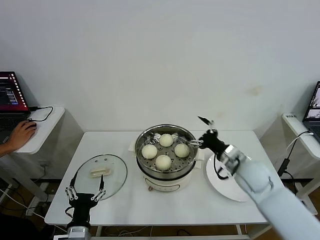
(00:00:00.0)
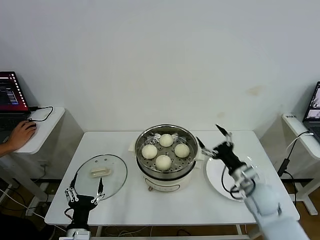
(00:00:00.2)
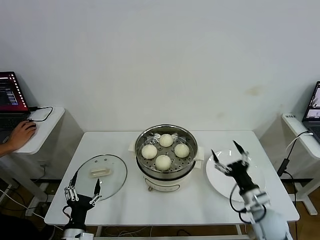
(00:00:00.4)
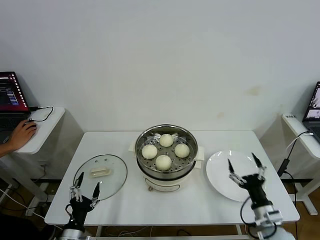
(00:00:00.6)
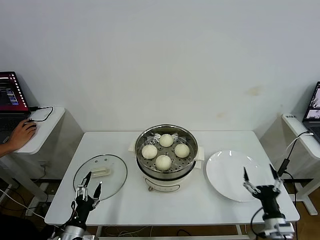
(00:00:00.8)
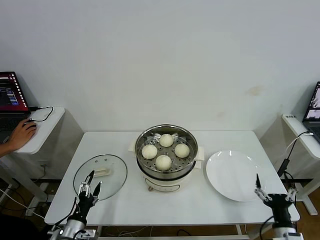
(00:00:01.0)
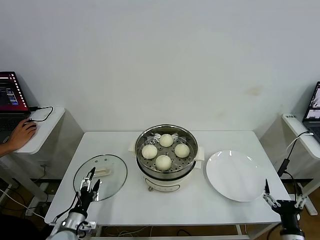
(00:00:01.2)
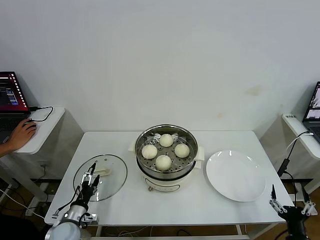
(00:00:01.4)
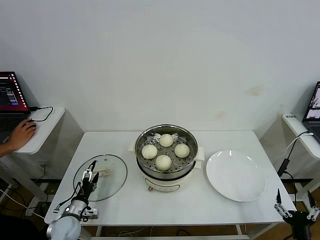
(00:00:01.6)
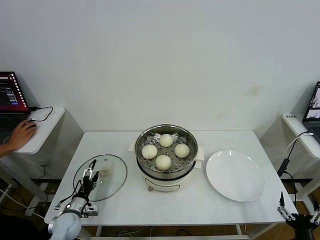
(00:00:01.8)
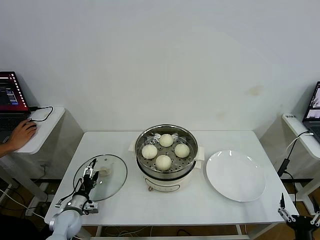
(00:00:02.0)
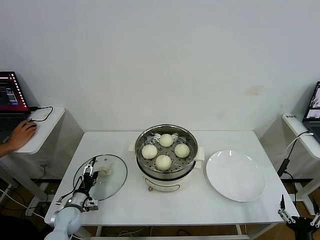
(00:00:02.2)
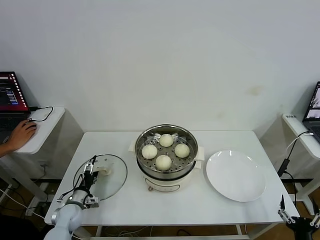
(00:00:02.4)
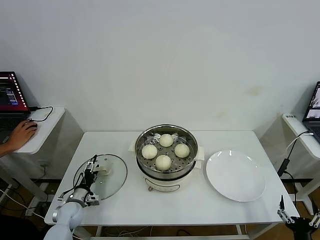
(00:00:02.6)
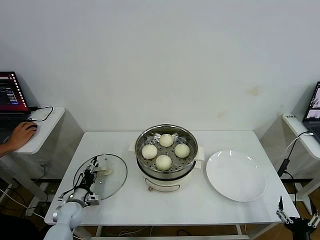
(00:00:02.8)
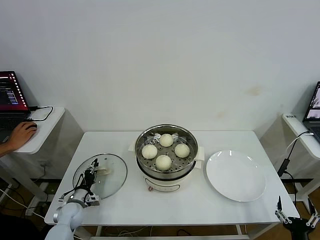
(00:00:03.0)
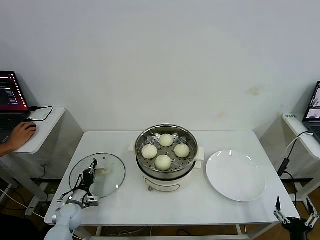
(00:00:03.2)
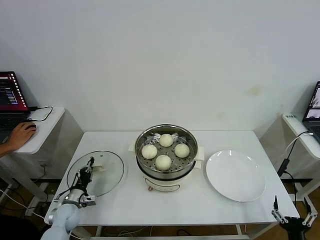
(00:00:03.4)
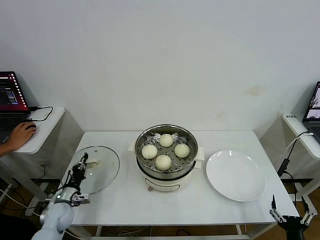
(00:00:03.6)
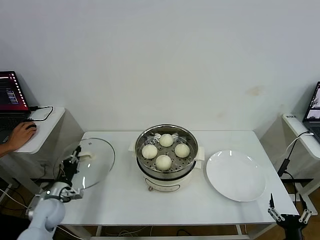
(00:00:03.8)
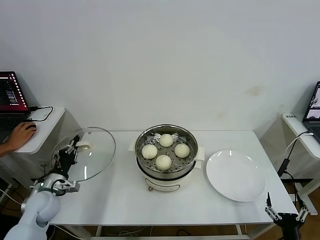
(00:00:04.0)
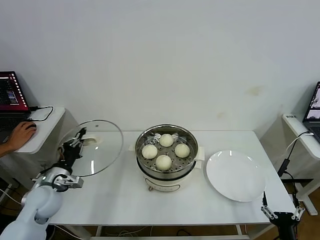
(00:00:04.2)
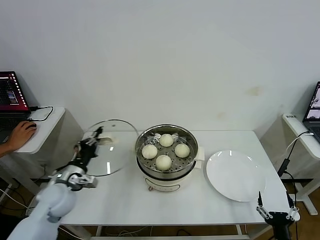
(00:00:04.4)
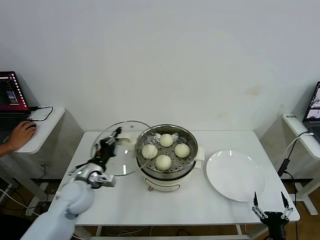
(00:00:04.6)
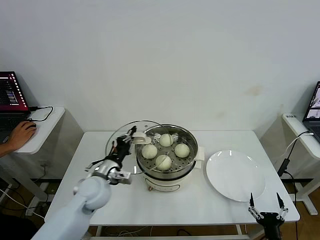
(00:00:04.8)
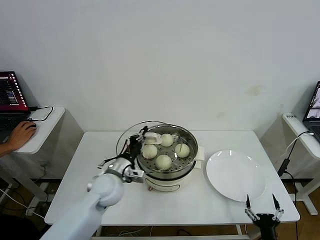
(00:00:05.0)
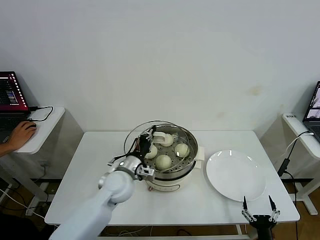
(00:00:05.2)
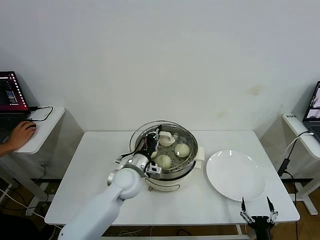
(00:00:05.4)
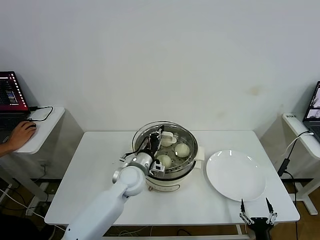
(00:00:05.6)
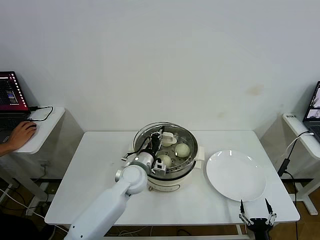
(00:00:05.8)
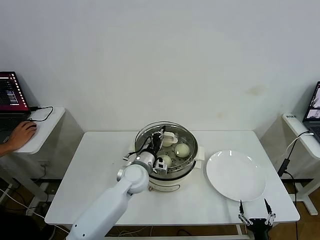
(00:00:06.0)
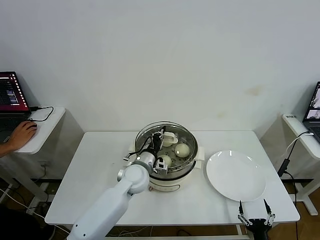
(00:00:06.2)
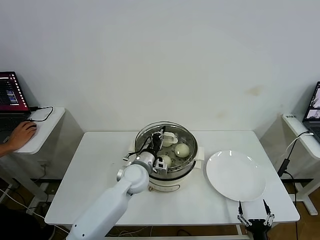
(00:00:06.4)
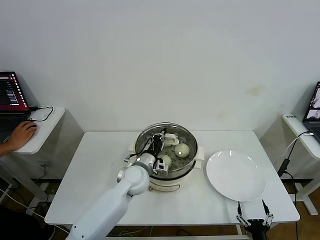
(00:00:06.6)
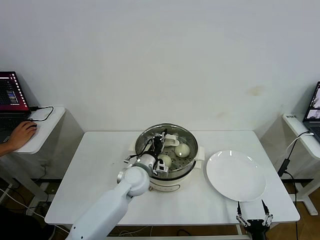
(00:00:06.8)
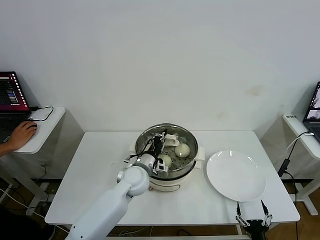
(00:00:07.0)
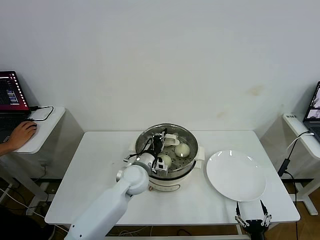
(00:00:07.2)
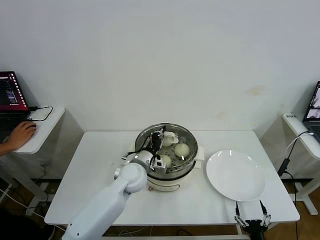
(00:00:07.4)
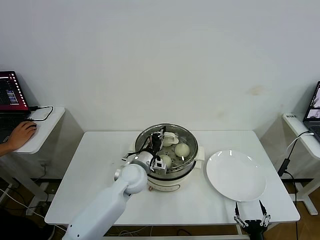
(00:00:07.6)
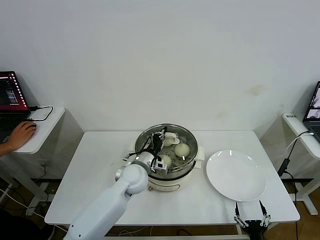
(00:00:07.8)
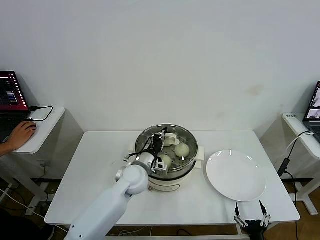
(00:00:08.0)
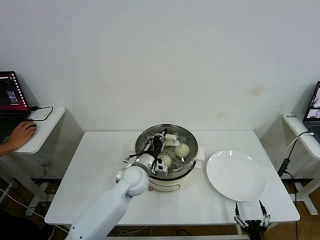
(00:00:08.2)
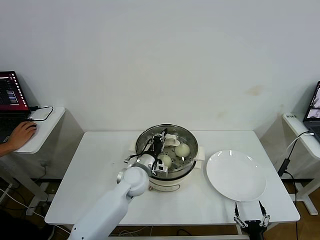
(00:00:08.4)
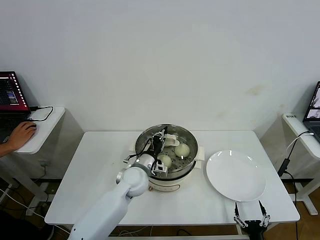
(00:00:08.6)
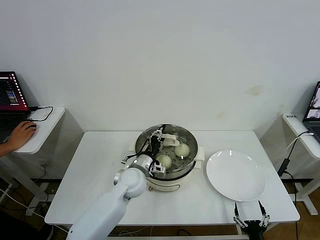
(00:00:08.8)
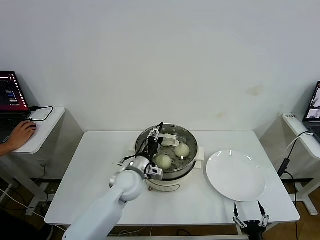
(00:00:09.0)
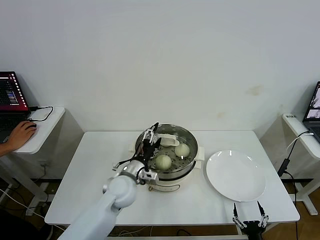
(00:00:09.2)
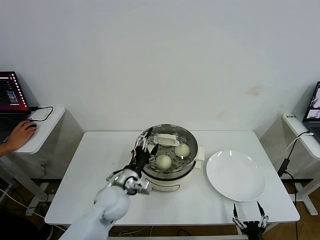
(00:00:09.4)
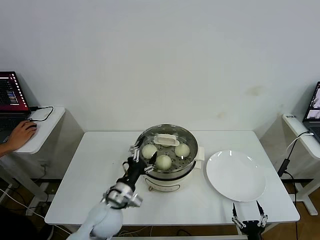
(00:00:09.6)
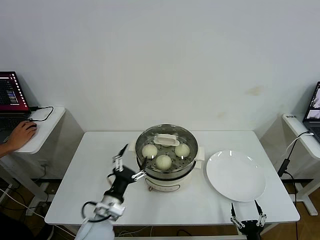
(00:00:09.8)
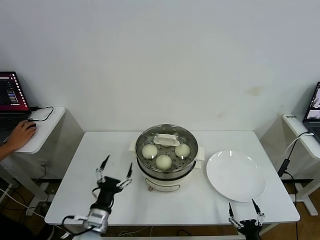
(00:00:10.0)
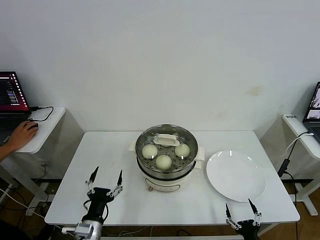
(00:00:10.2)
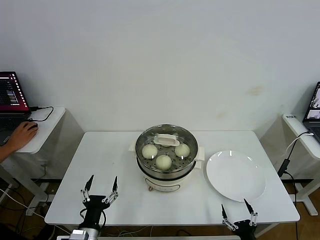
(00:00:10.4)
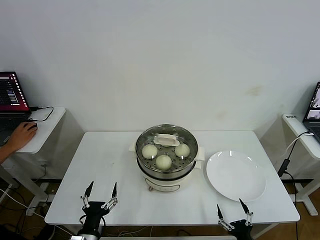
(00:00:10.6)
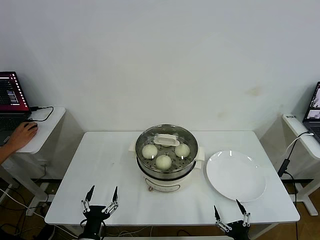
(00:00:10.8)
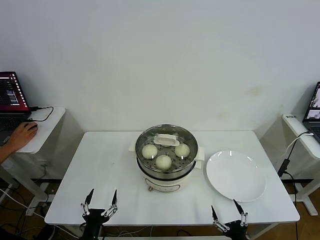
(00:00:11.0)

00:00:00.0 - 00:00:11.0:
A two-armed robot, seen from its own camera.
Step, 00:00:00.0 - 00:00:03.4: Grasp the pot lid with left gripper.
Step, 00:00:03.6 - 00:00:09.4: Place the pot lid on the steamer with left gripper.
00:00:00.0 - 00:00:01.6: The right gripper goes approximately 35 cm backward, downward and to the right. Meanwhile the left gripper is displaced forward, to the left and downward by some 15 cm.
00:00:01.6 - 00:00:03.2: The left gripper heads forward, covering some 5 cm, and closes its fingers.
00:00:03.2 - 00:00:04.8: The right gripper shifts by some 5 cm; the left gripper heads upward and to the right, covering roughly 25 cm.
00:00:04.8 - 00:00:06.2: The left gripper is displaced to the right and forward by roughly 15 cm.
00:00:06.2 - 00:00:07.8: There are only small adjustments of the grippers.
00:00:07.8 - 00:00:09.4: The left gripper goes some 5 cm backward, and opens up.
00:00:09.4 - 00:00:11.0: The left gripper goes roughly 25 cm backward, downward and to the left. The right gripper moves upward, approximately 5 cm.

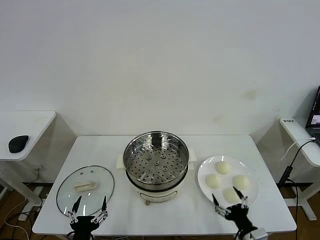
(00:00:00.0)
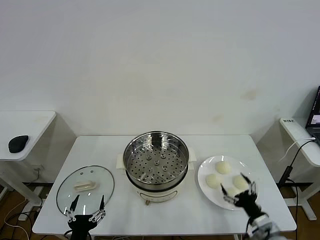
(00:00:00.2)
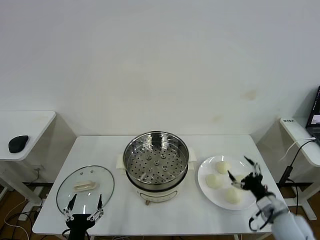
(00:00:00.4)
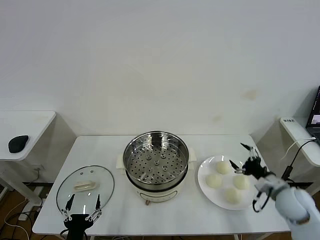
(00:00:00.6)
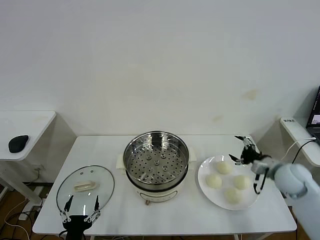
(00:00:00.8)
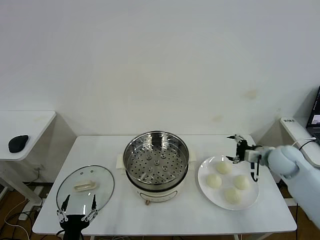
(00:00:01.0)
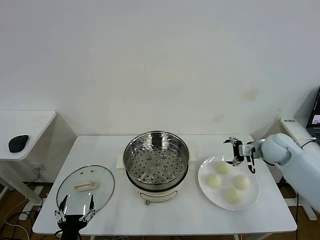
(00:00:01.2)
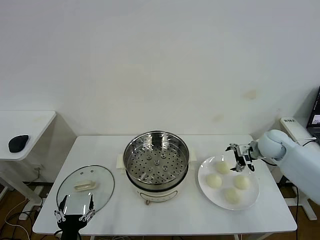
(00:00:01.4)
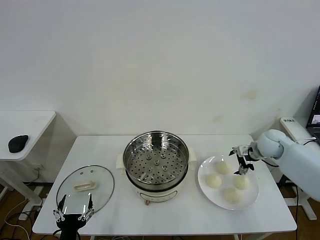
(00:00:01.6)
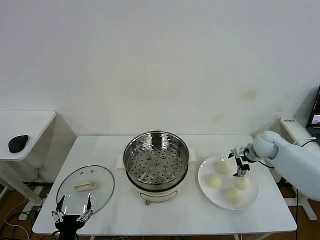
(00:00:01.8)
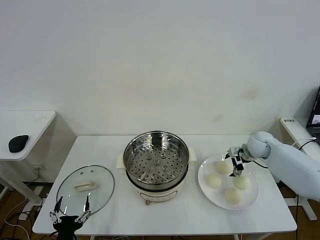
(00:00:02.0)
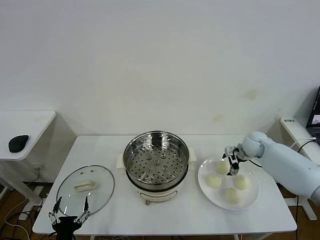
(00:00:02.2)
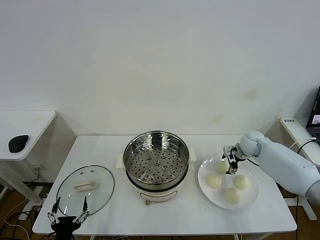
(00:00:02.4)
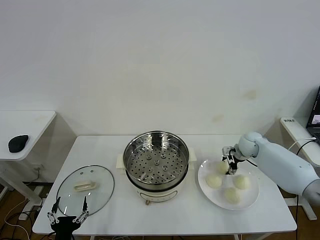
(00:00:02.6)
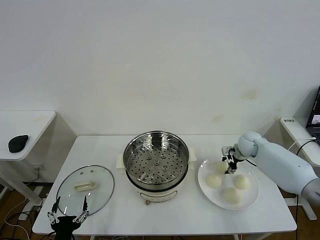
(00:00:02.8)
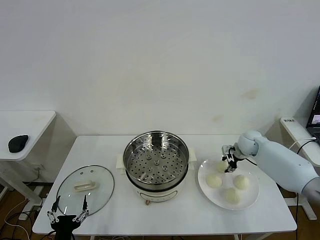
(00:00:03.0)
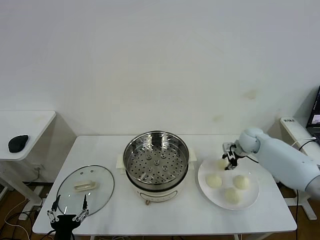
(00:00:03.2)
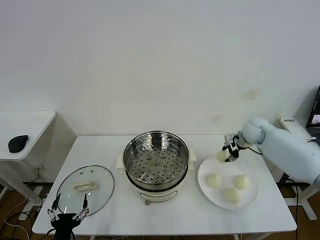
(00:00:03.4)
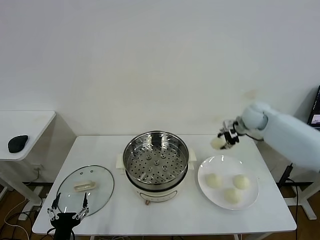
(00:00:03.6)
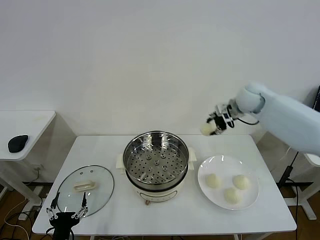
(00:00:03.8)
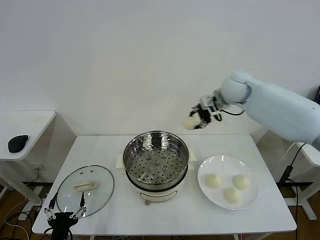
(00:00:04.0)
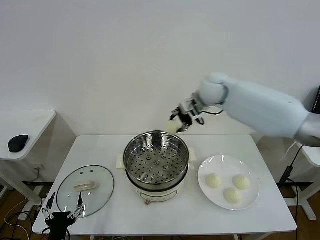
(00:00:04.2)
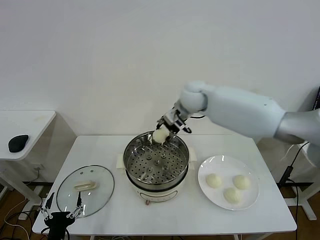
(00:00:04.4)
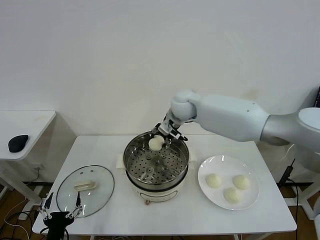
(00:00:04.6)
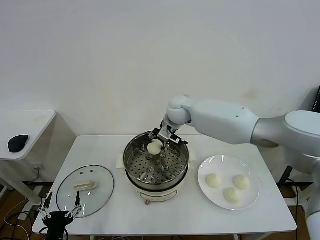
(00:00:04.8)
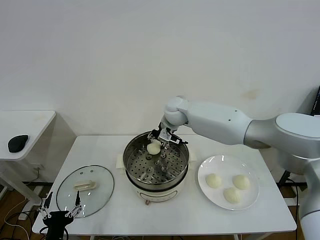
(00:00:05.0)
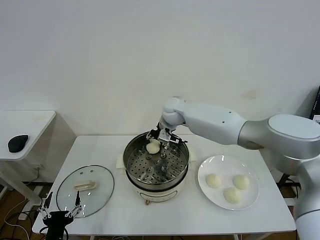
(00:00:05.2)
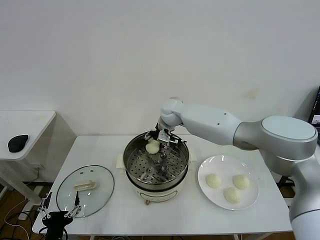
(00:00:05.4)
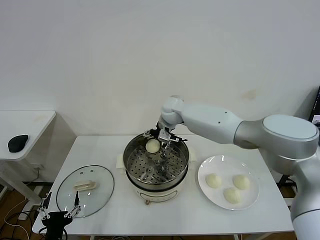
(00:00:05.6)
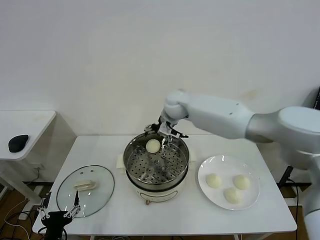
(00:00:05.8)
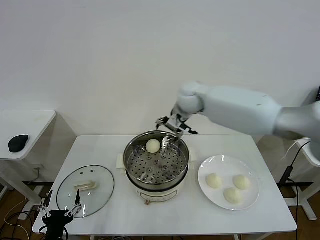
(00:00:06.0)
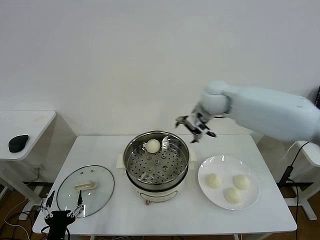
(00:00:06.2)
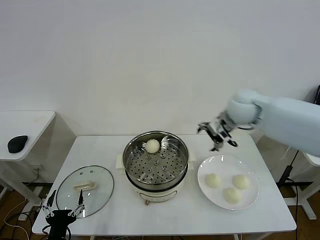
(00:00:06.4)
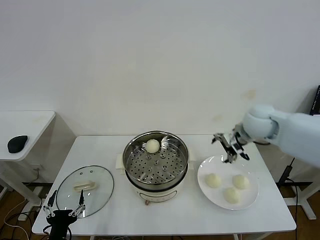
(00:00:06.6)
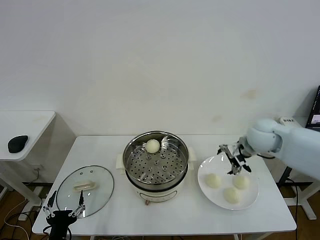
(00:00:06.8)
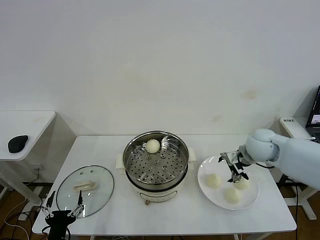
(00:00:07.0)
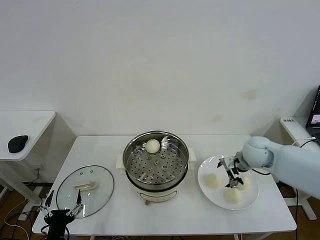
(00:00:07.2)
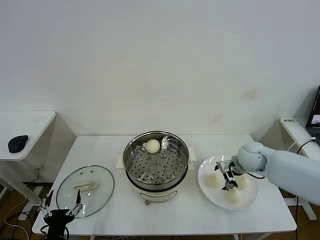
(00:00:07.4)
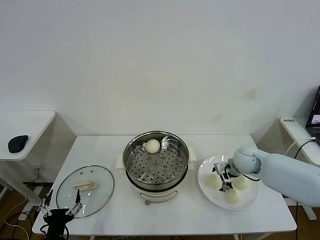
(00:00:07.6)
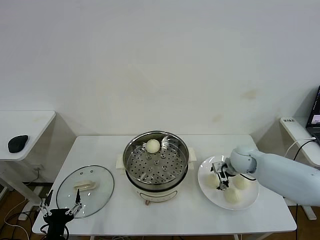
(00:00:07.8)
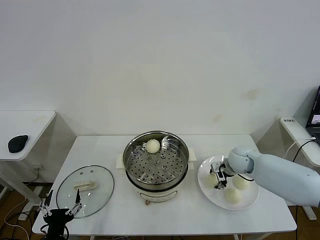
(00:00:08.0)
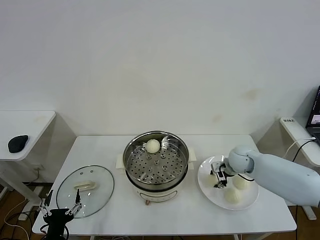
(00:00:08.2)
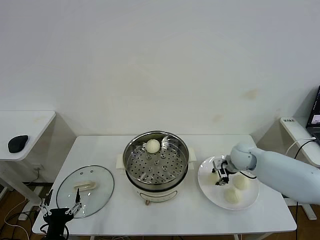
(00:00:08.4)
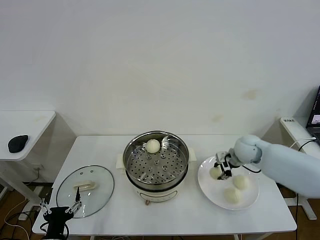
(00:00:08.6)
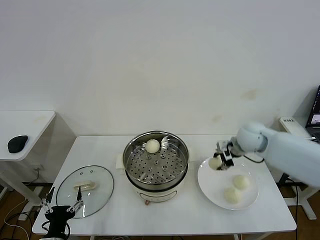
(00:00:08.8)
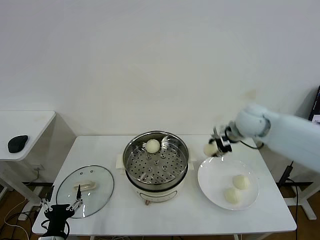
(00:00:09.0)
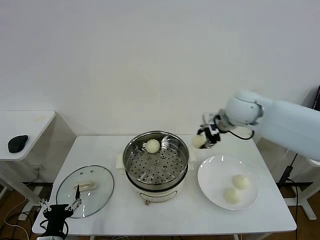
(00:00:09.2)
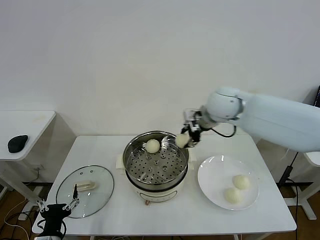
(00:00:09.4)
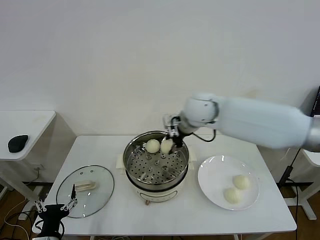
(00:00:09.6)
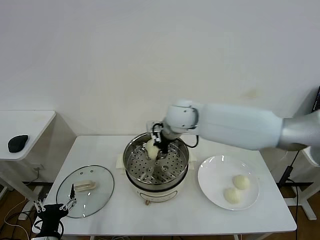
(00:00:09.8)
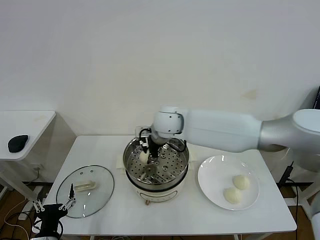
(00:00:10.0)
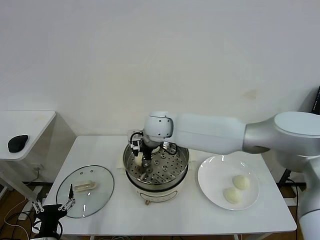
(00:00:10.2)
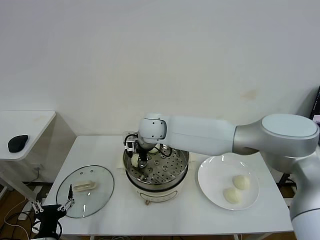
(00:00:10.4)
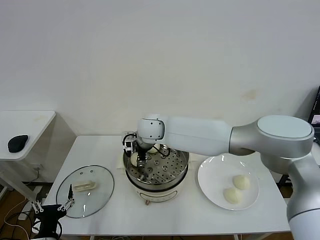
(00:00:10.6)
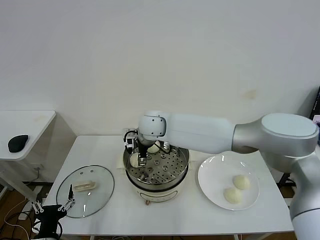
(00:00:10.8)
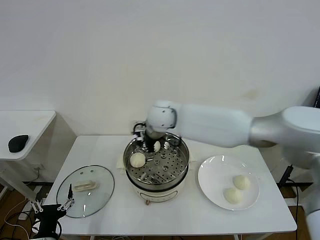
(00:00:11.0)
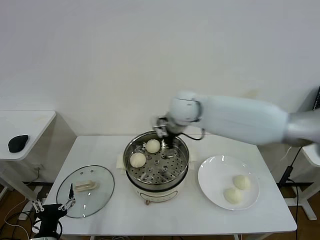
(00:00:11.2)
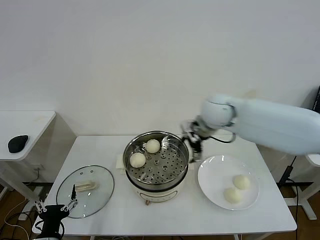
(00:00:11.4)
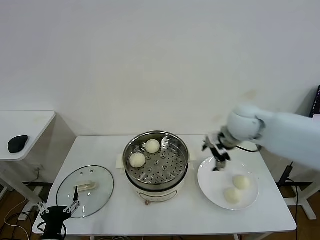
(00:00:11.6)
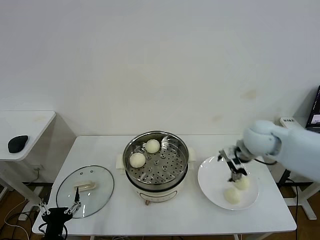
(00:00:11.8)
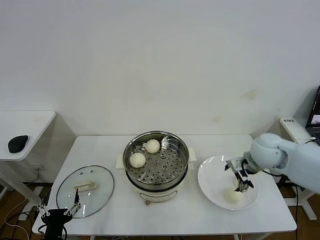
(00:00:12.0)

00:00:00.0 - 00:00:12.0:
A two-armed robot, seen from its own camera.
Step, 00:00:00.0 - 00:00:02.6: Grasp the baozi in the plate with right gripper.
Step, 00:00:02.8 - 00:00:05.4: Place the baozi on the steamer with right gripper.
Step, 00:00:05.8 - 00:00:08.0: Grasp the baozi in the plate with right gripper.
Step, 00:00:08.2 - 00:00:10.6: Place the baozi on the steamer with right gripper.
00:00:01.6 - 00:00:03.0: The right gripper moves roughly 5 cm, and closes up.
00:00:03.0 - 00:00:04.4: The right gripper goes roughly 30 cm to the left and upward.
00:00:04.4 - 00:00:06.0: The right gripper moves approximately 5 cm downward and comes back, and opens its fingers.
00:00:06.0 - 00:00:07.6: The right gripper shifts about 30 cm downward, to the right and backward.
00:00:07.6 - 00:00:09.0: The right gripper shifts about 20 cm upward, and closes up.
00:00:09.0 - 00:00:10.4: The right gripper heads to the left, covering about 30 cm.
00:00:10.4 - 00:00:12.0: The right gripper heads to the right, covering roughly 35 cm, and opens.
